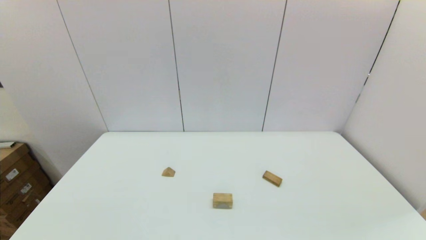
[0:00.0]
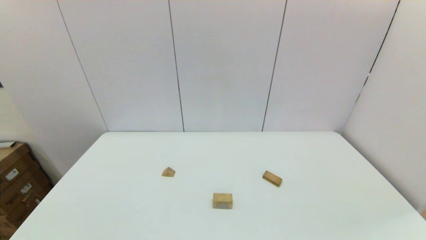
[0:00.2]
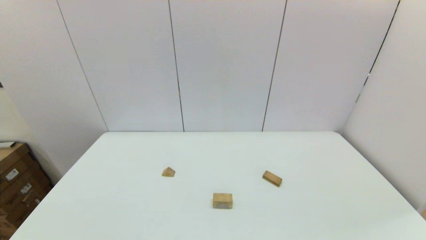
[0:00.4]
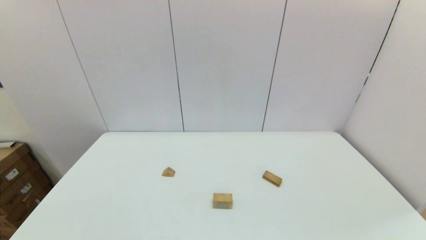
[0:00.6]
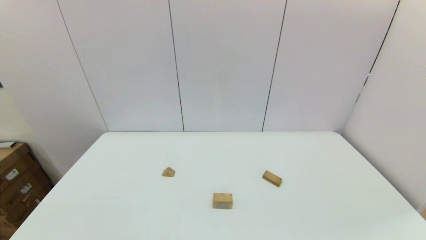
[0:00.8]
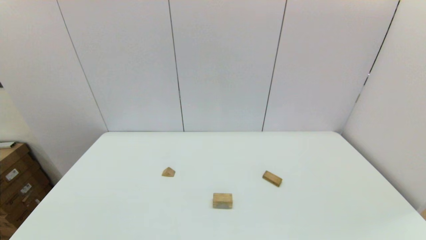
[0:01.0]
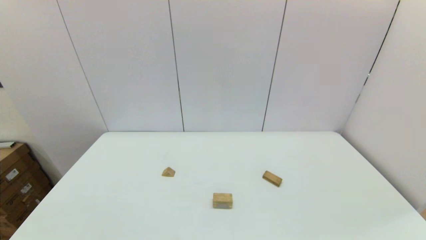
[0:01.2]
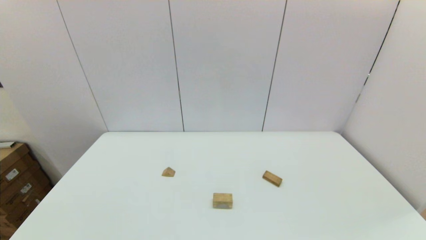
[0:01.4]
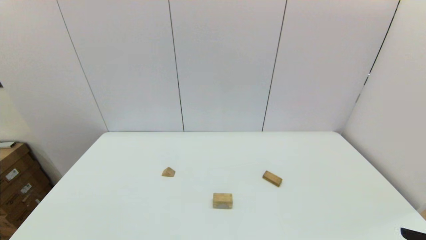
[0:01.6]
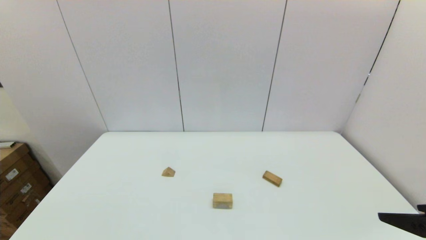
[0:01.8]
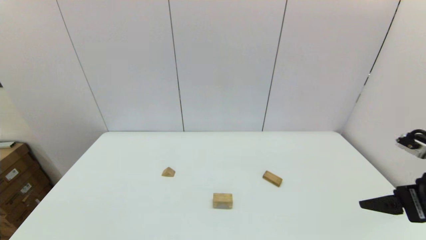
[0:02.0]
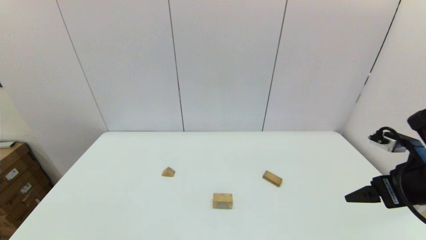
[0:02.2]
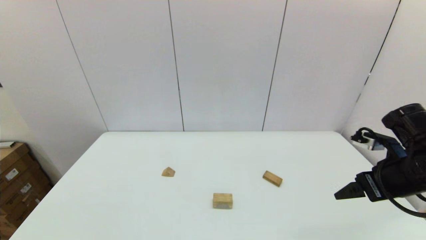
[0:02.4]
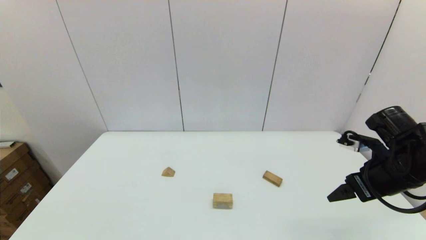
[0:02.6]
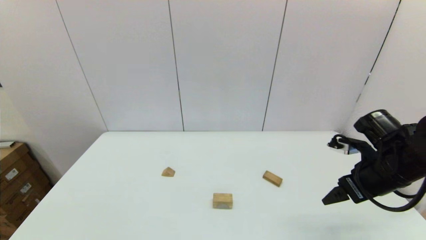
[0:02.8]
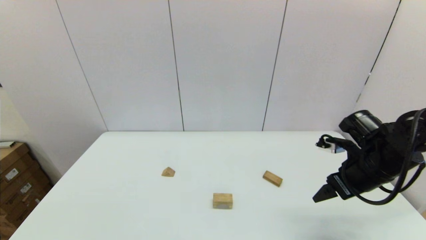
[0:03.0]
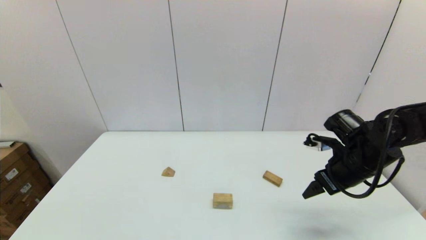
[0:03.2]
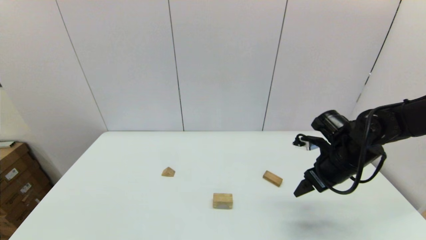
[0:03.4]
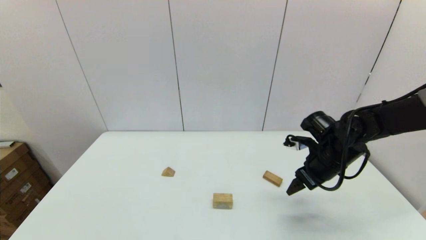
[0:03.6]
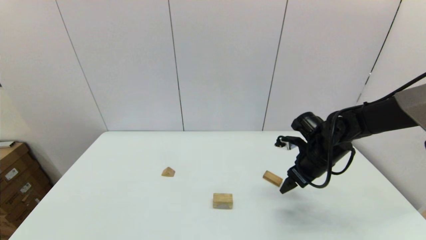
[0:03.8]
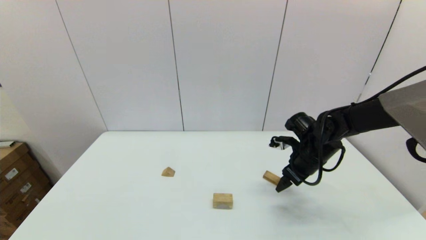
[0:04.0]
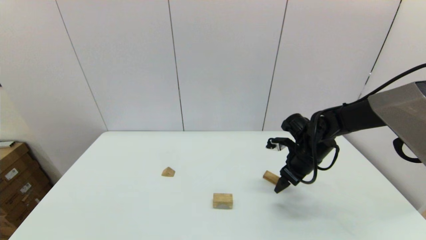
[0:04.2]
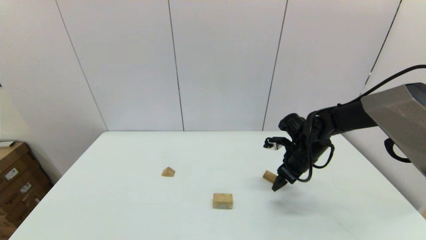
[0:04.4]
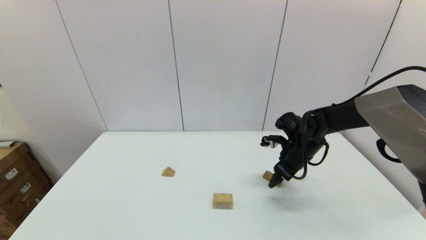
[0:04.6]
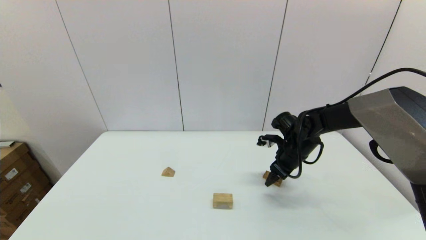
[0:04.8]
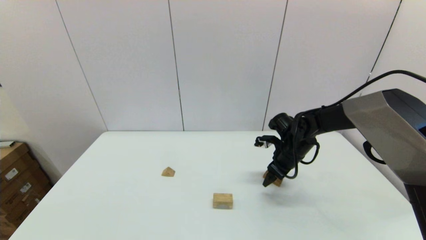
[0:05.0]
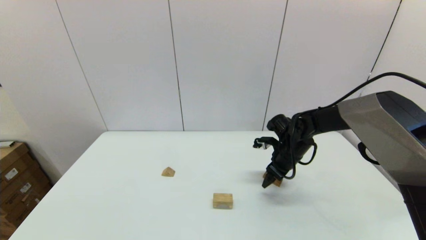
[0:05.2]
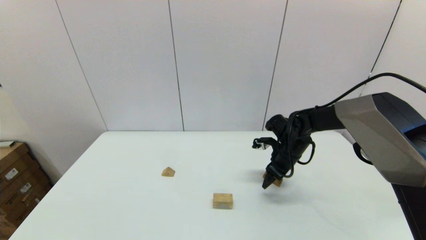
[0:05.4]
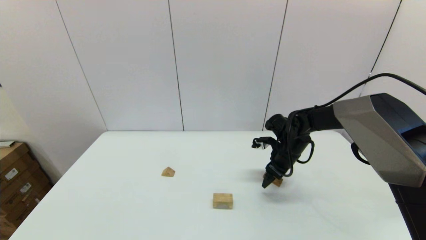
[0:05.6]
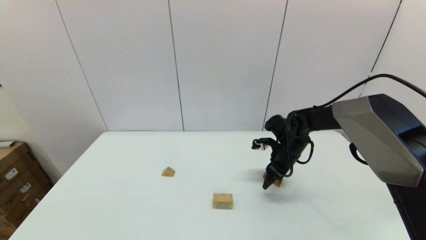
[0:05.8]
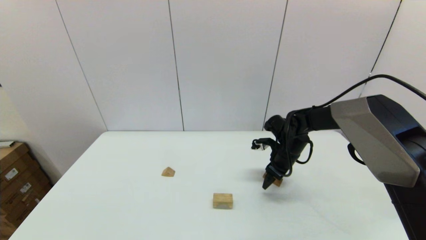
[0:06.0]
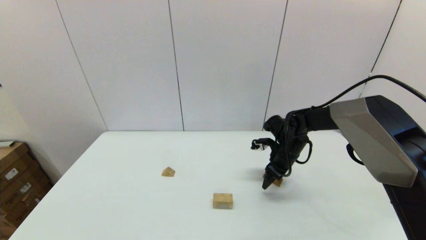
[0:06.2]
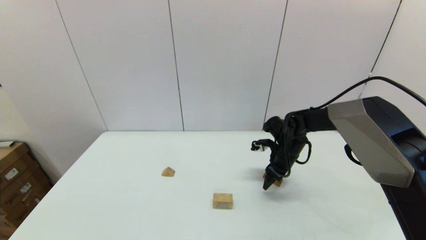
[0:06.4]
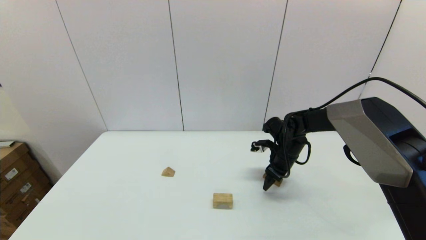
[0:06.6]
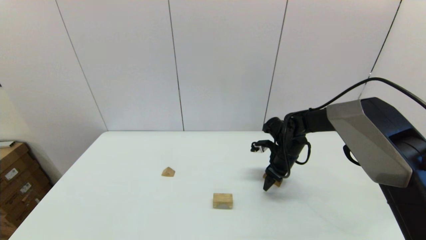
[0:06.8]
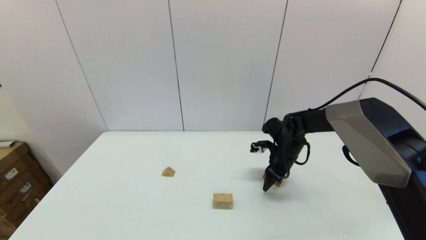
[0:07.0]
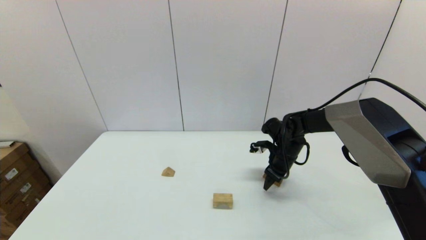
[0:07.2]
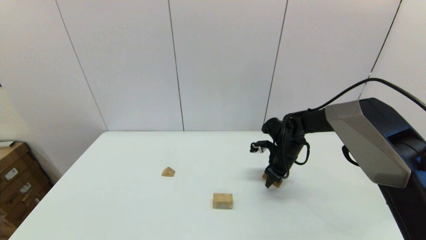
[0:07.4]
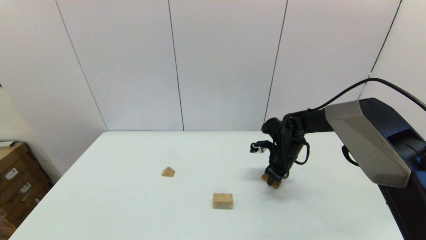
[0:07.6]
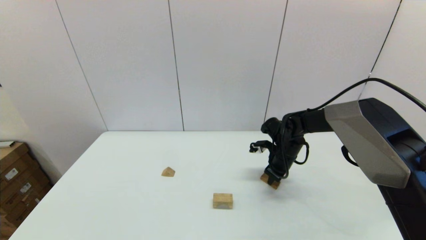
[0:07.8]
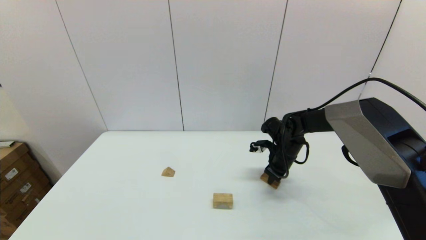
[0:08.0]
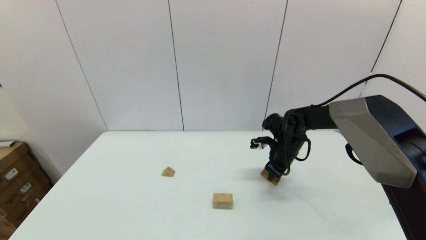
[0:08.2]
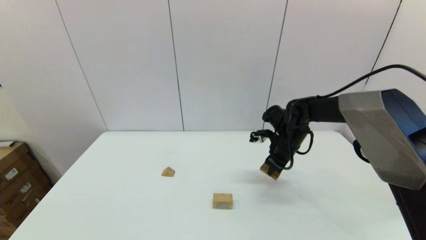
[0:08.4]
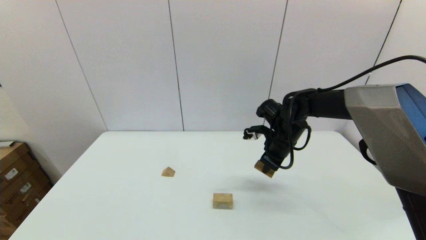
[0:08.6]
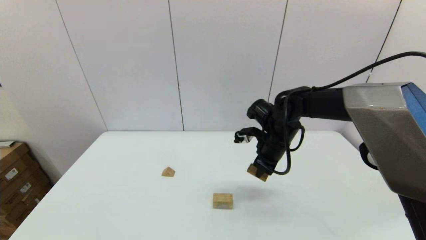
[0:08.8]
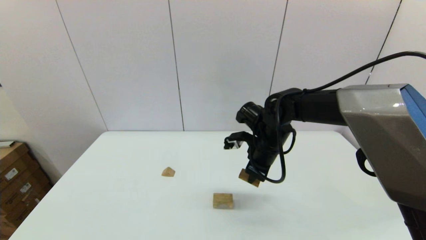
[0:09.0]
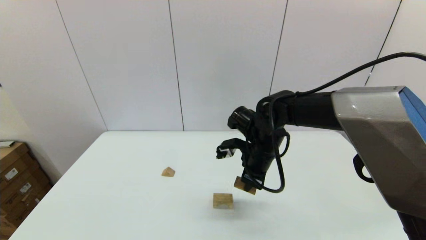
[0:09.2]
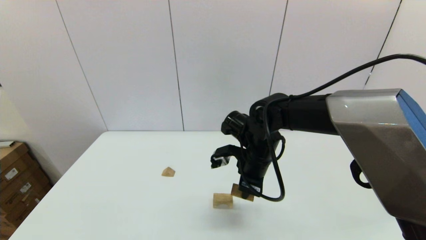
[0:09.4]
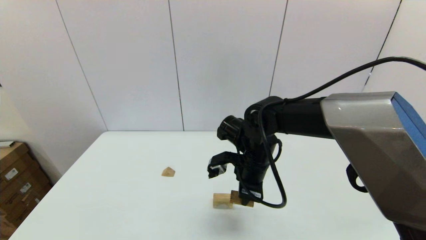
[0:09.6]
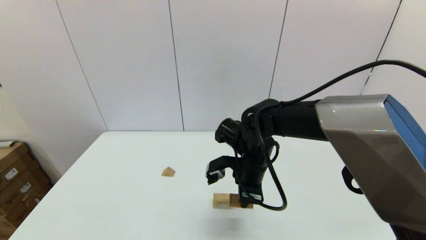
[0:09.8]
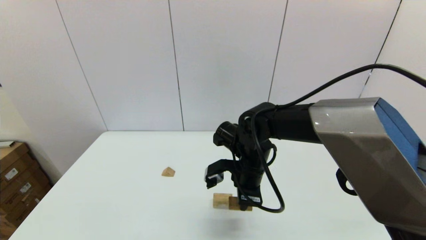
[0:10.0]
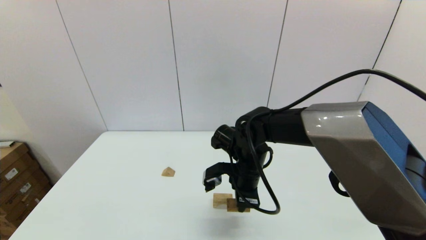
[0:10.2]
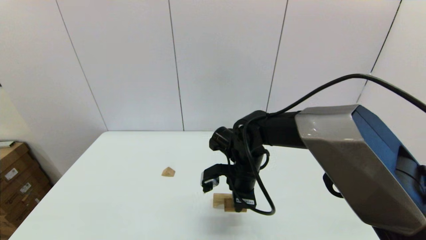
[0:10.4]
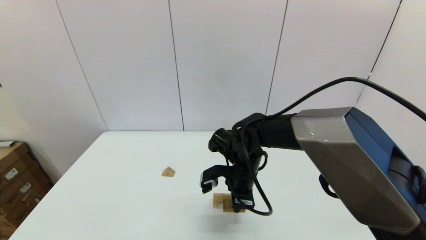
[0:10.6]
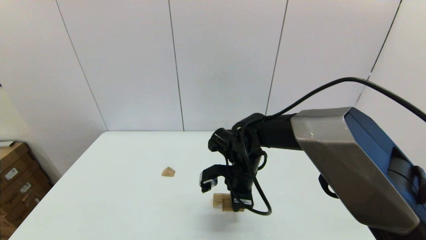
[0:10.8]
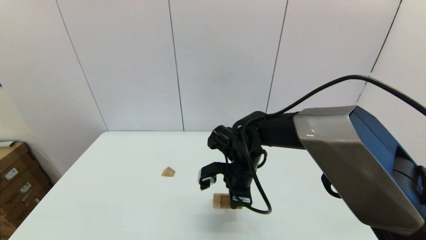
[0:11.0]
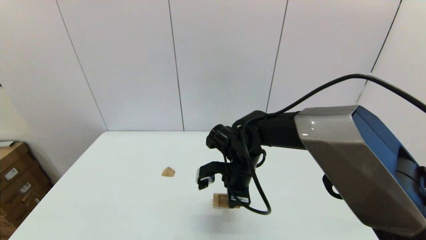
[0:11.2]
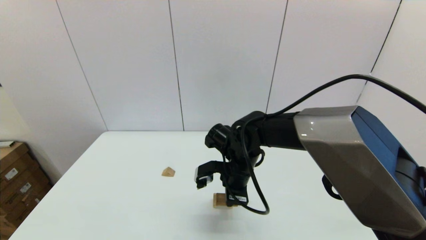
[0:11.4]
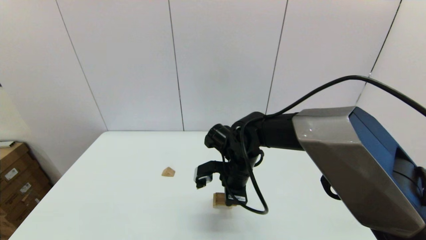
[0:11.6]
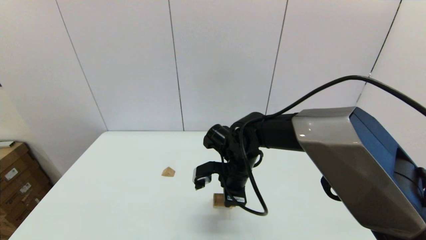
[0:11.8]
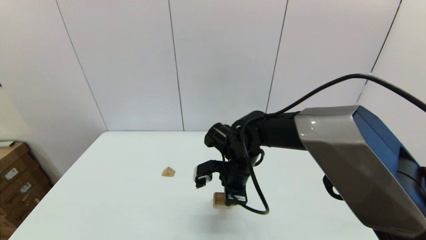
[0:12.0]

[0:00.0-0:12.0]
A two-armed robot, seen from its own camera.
Task of the whole recording: place the arched building blocks in the center of the table, set up the rectangular building blocks, and then set up the triangular building blocks.
Step, 0:00.0 to 0:08.0: Grasp the box-shaped block with the right gripper.
0:01.6 to 0:03.0: The right gripper goes roughly 20 cm forward.
0:03.0 to 0:04.4: The right gripper shifts roughly 15 cm forward, to the left and downward.
0:04.4 to 0:06.0: The grippers make only small movements.
0:06.0 to 0:07.6: The right gripper closes up.
0:07.6 to 0:09.0: The right gripper is displaced upward, to the left and backward by approximately 15 cm.
0:09.0 to 0:10.4: The right gripper shifts some 5 cm to the left.
0:10.4 to 0:12.0: The grippers move only a little.

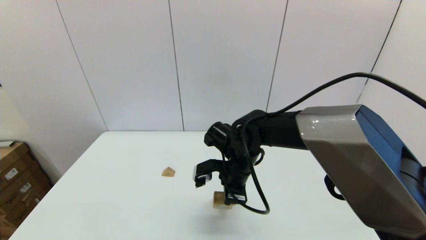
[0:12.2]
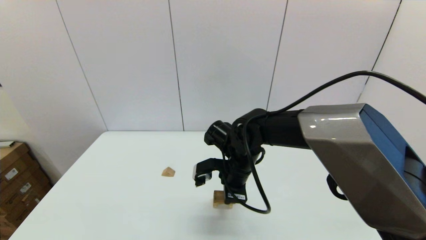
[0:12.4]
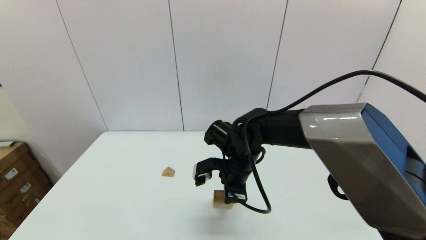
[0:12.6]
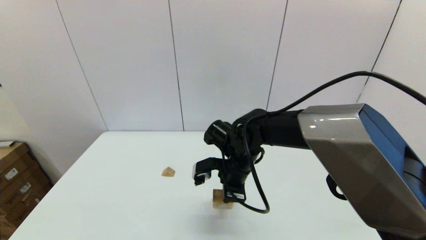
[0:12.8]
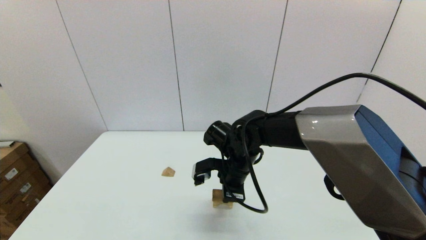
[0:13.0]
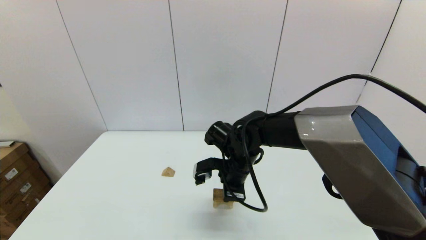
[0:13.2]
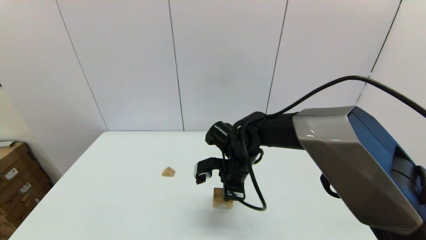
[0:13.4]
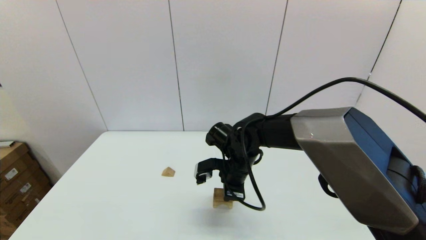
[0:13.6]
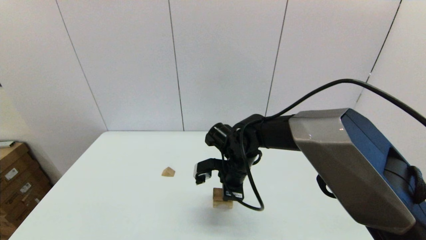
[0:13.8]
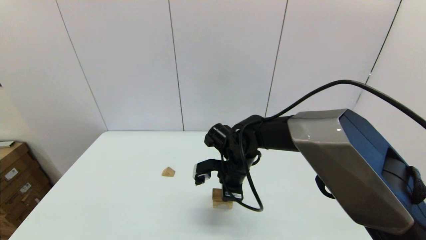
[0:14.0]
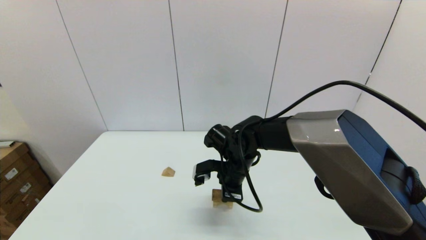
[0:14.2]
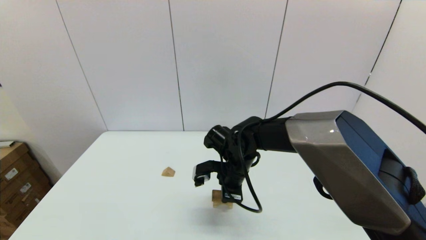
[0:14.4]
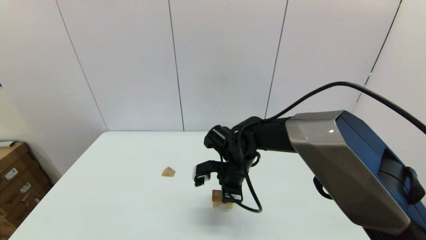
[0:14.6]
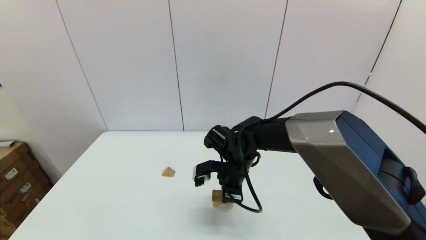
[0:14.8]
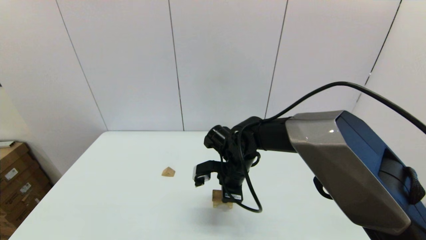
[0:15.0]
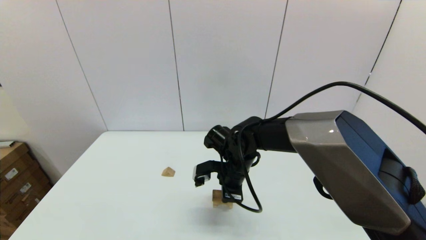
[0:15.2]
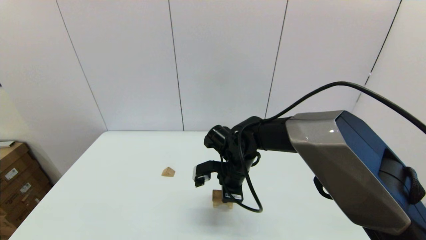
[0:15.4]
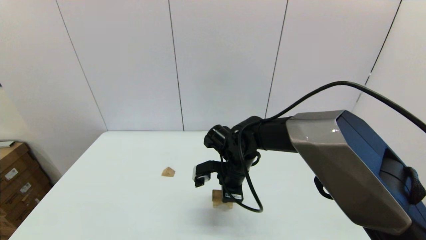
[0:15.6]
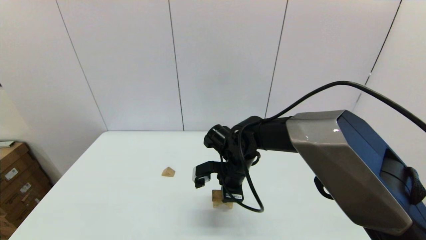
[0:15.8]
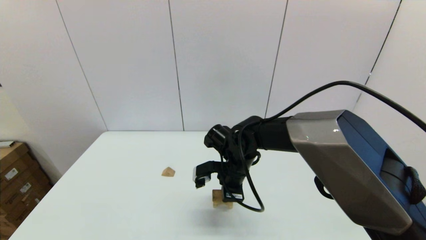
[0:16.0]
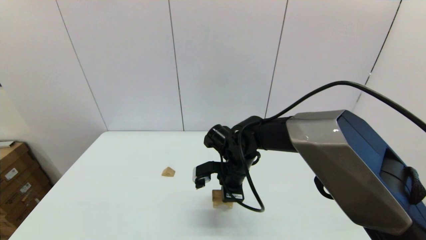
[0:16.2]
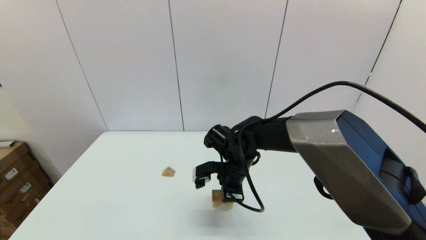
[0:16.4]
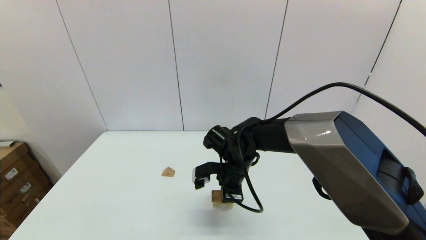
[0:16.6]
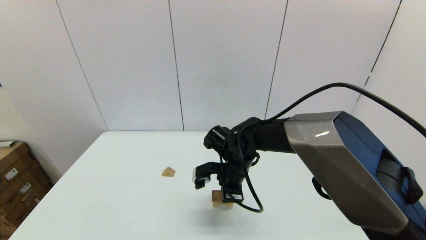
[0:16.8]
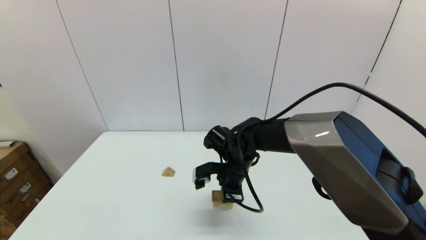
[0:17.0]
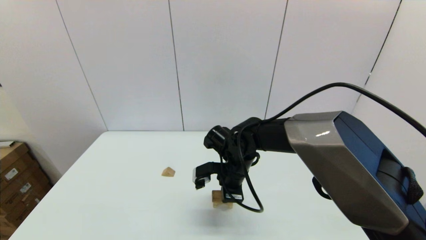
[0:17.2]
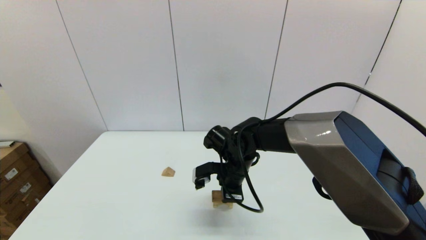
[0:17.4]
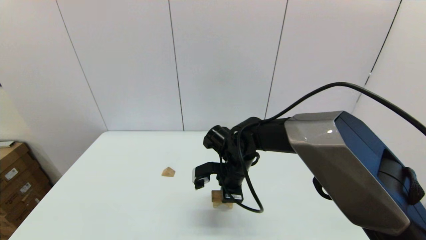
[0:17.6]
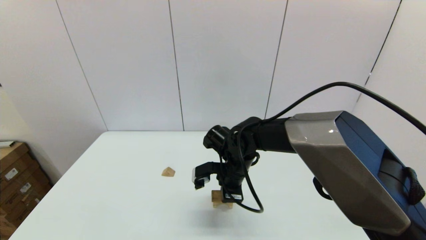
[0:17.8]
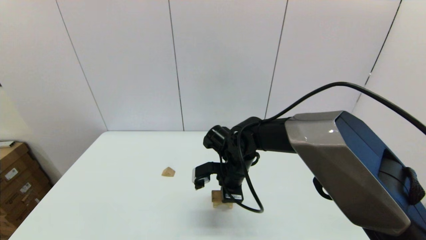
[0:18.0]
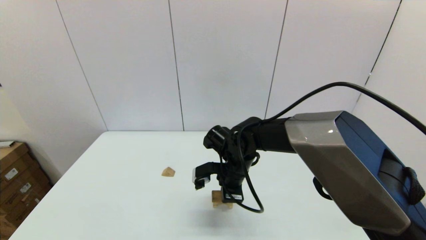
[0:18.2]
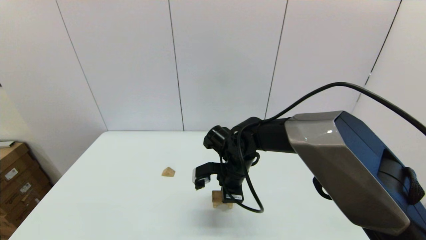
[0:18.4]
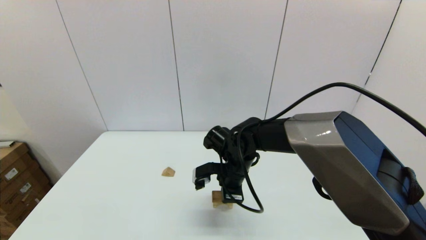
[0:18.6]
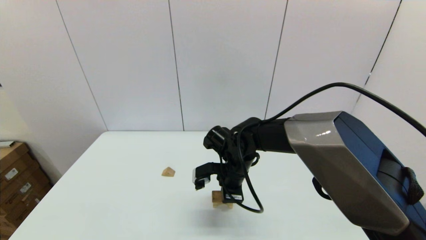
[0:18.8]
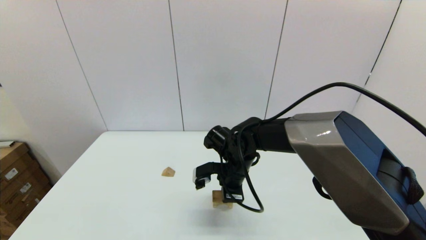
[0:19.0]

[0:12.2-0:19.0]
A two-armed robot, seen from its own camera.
Task of the whole recording: place the arched building blocks in the center of the table, set up the rectangular building blocks, and then set up the triangular building blocks.
0:12.2 to 0:13.6: There are only small adjustments of the grippers.
0:13.6 to 0:19.0: Both grippers stay about where they are.
